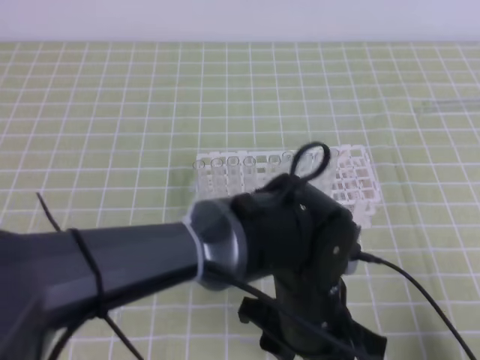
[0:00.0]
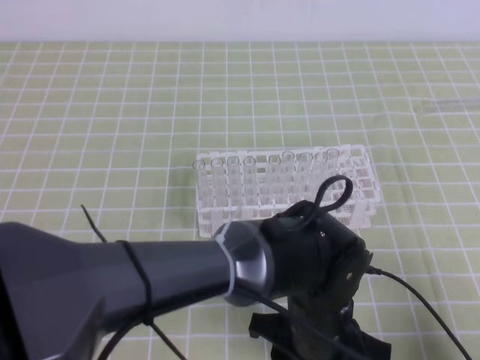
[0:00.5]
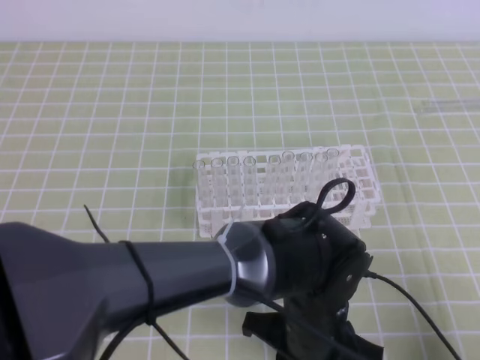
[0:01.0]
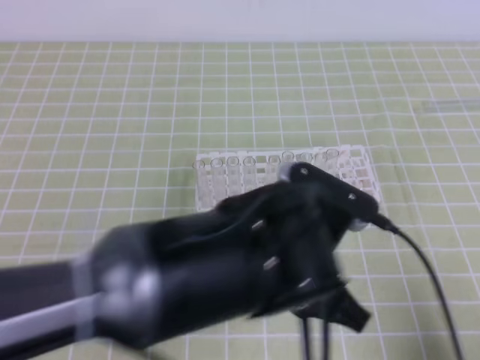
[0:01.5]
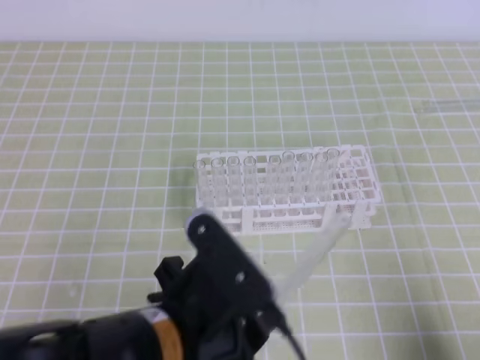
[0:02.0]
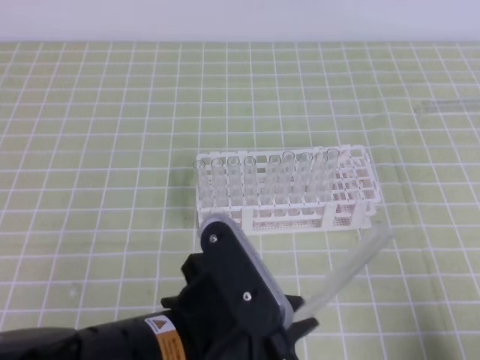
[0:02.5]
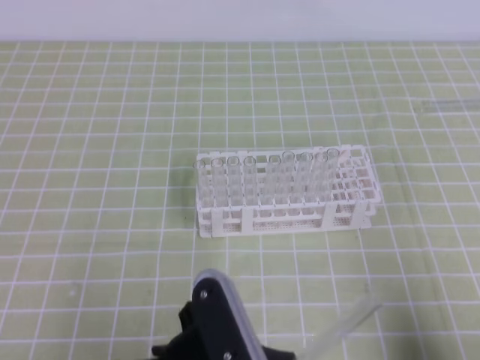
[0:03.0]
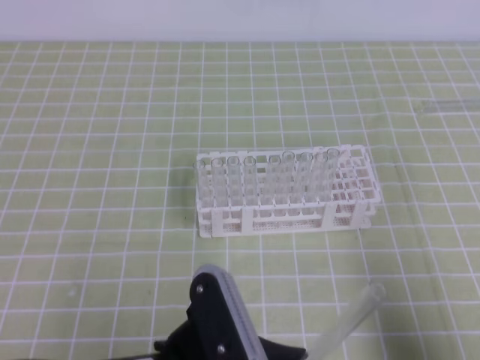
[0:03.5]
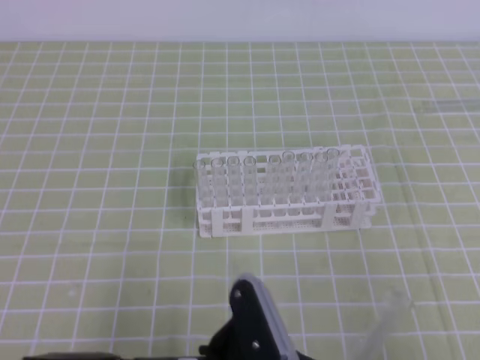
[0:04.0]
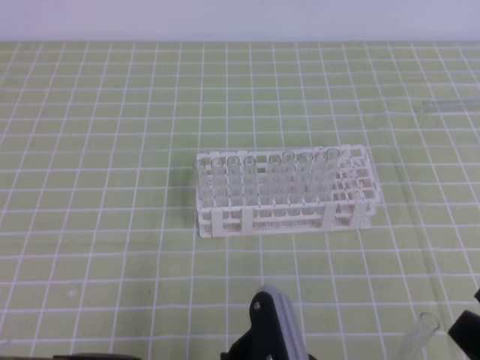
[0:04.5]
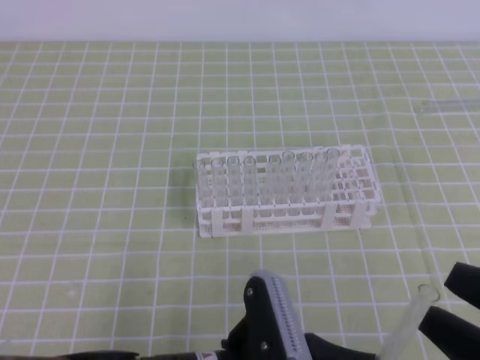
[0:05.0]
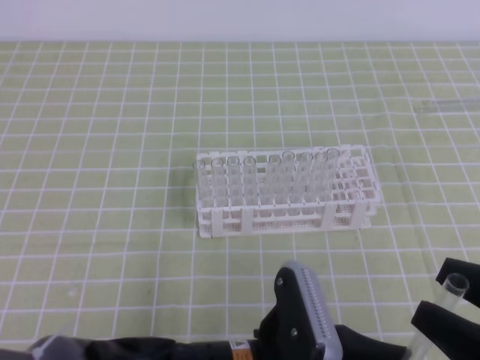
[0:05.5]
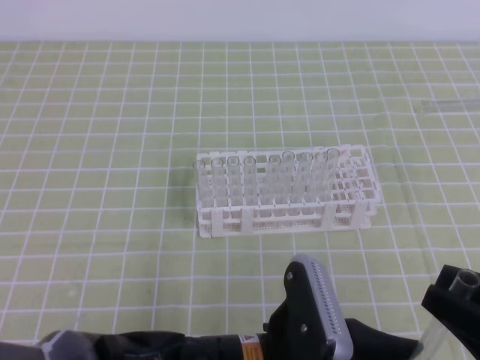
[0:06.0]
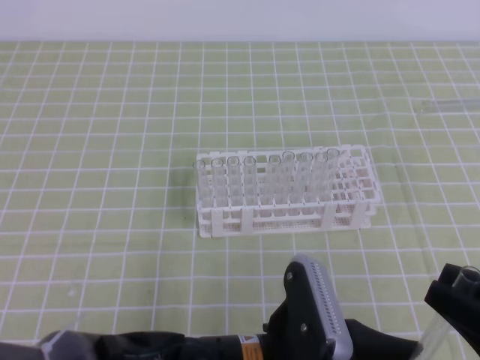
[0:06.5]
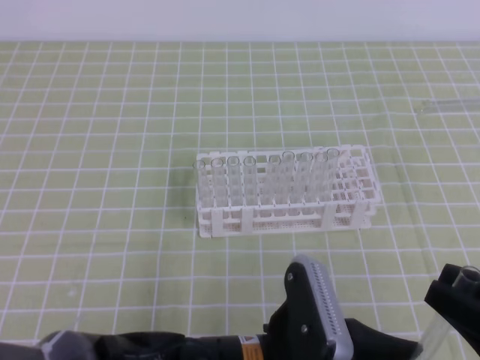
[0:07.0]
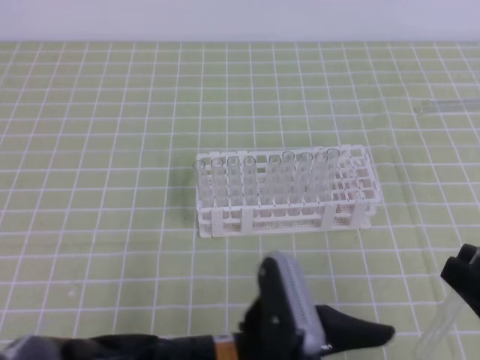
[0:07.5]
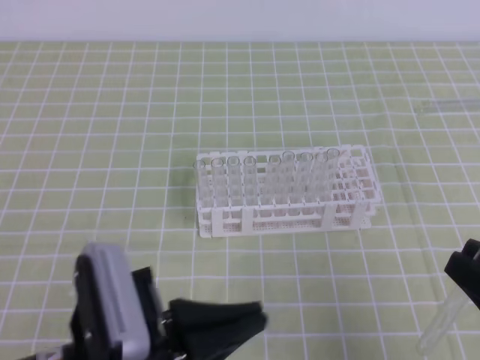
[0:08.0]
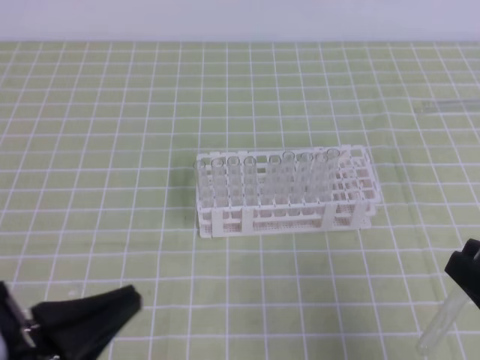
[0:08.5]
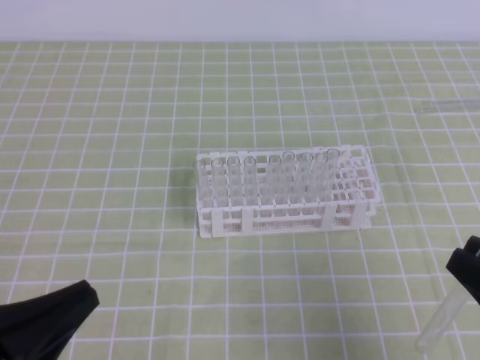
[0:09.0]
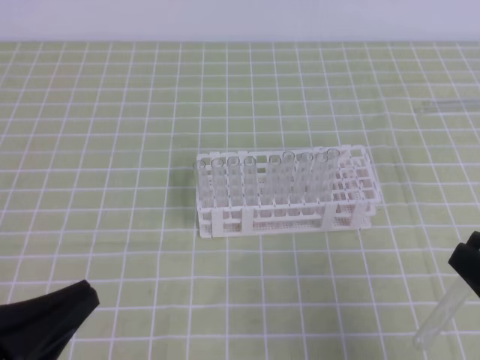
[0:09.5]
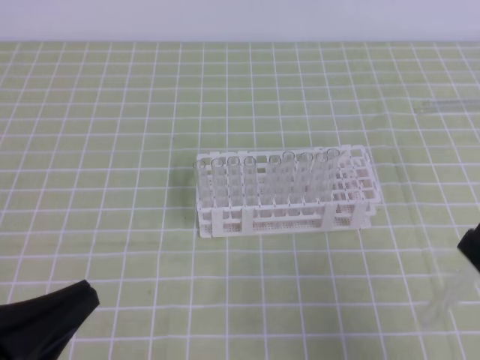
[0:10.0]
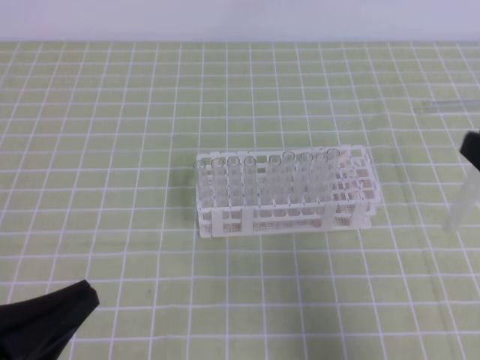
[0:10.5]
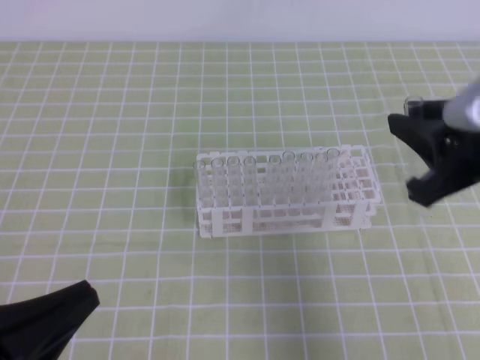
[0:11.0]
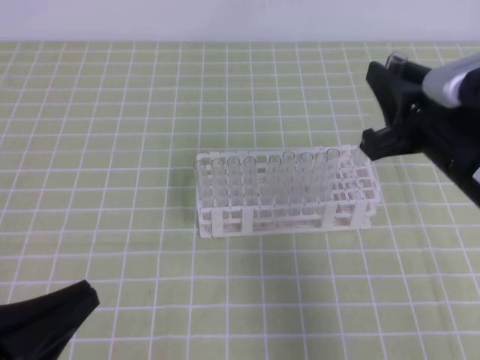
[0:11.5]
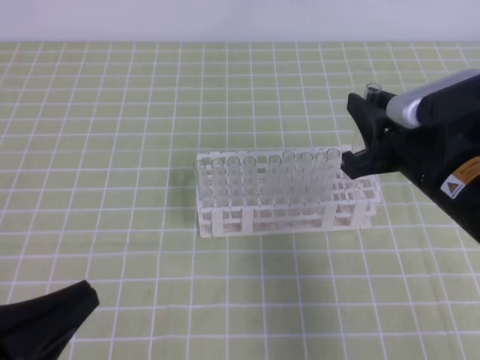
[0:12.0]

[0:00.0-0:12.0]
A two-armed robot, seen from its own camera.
0:00.0 to 0:02.0: The left gripper shifts roughly 15 cm to the left, upward and backward, and closes.
0:02.0 to 0:04.0: The left gripper goes some 5 cm downward; the right gripper is displaced upward by roughly 5 cm.
0:04.0 to 0:06.0: The left gripper shifts roughly 5 cm to the right; the right gripper shifts by about 5 cm, and opens its fingers.
0:06.0 to 0:08.0: The left gripper goes roughly 10 cm to the left, and opens, then closes once more.
0:08.0 to 0:10.0: The left gripper travels to the left by about 10 cm.
0:10.0 to 0:12.0: The right gripper is displaced forward and to the left by roughly 20 cm.

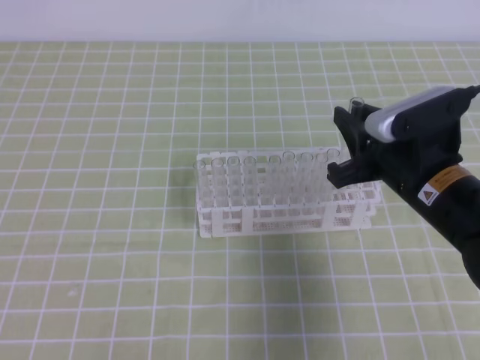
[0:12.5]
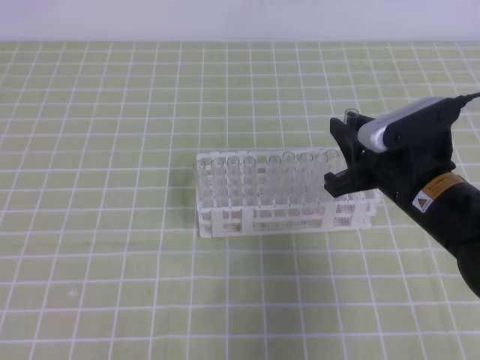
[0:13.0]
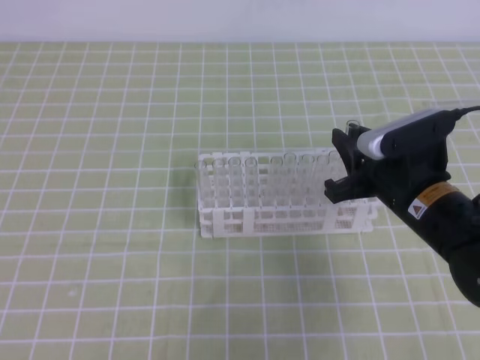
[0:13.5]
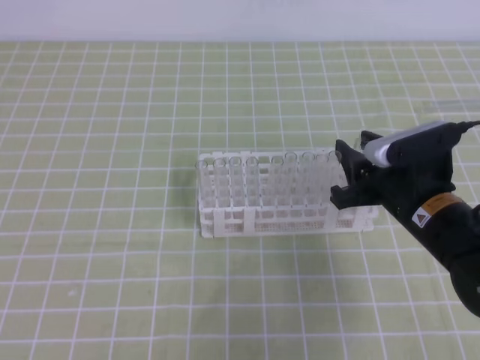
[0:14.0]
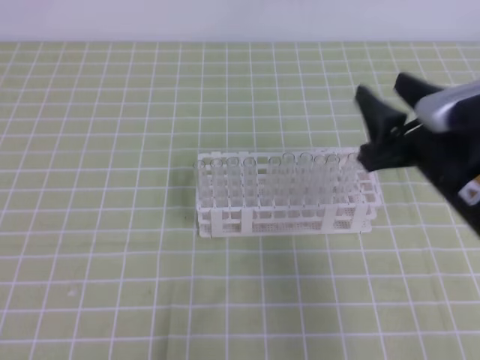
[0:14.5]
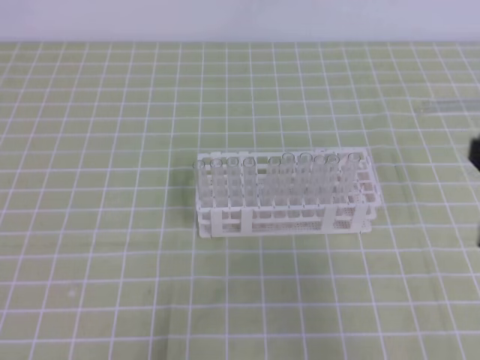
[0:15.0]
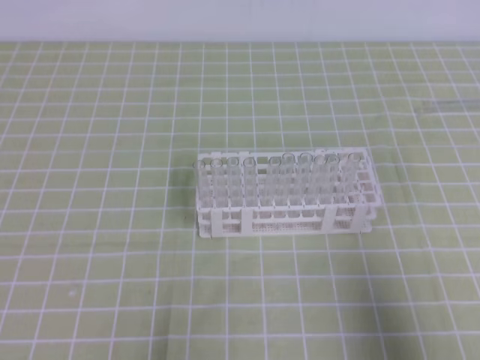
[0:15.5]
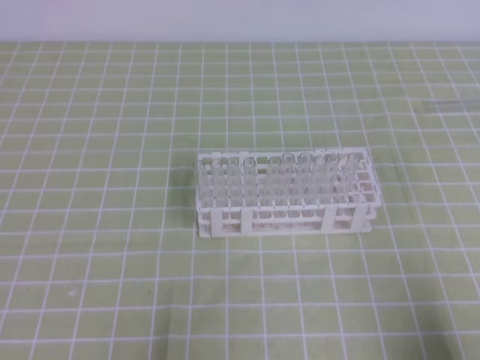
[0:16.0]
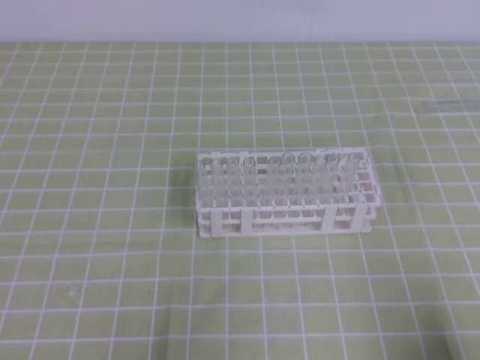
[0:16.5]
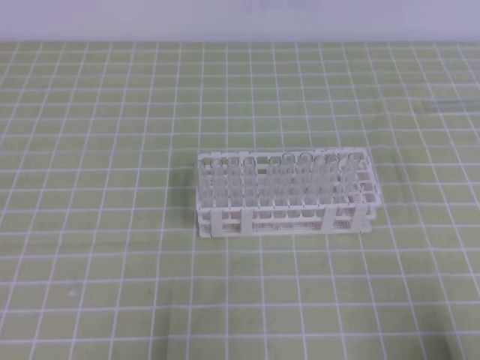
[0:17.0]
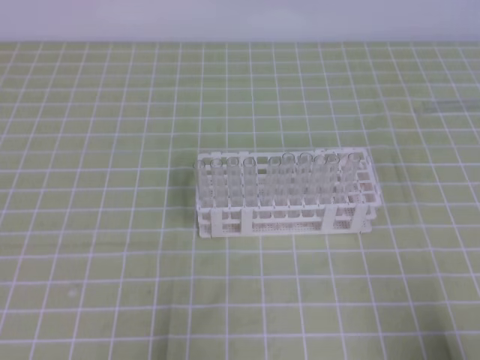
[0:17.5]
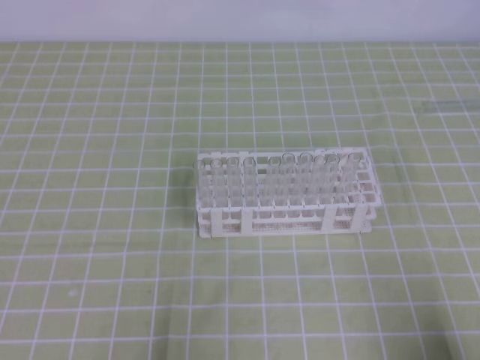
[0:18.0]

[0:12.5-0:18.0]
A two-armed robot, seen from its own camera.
0:12.5 to 0:14.5: The right gripper opens up.
0:14.5 to 0:16.0: The right gripper heads backward, to the right and downward, covering some 25 cm, and closes up.
0:16.0 to 0:18.0: Both grippers stay about where they are.

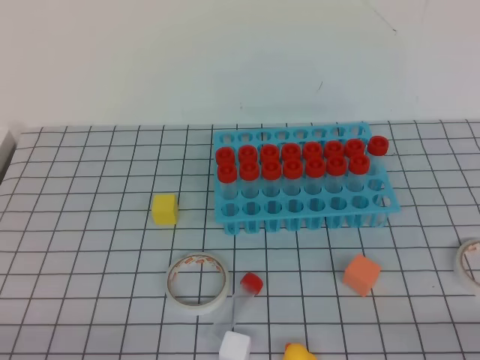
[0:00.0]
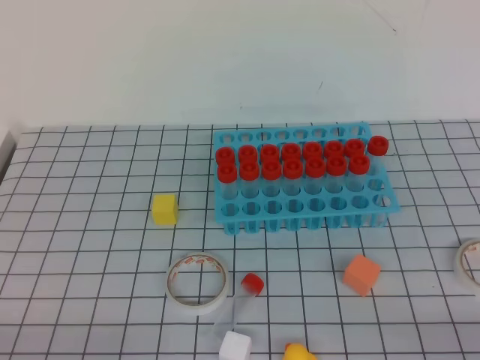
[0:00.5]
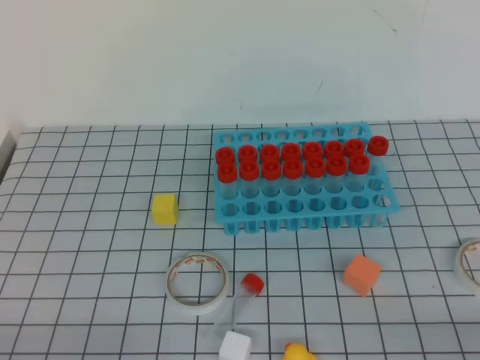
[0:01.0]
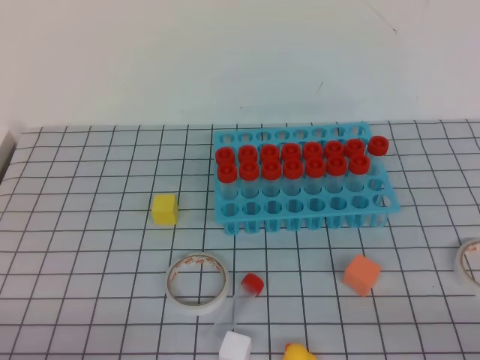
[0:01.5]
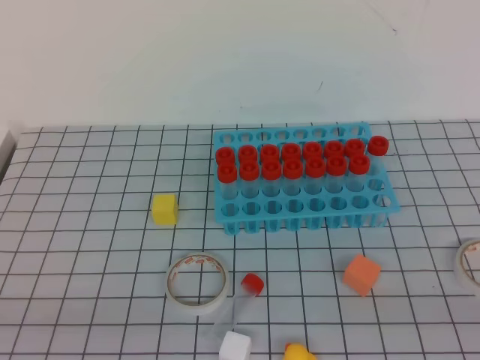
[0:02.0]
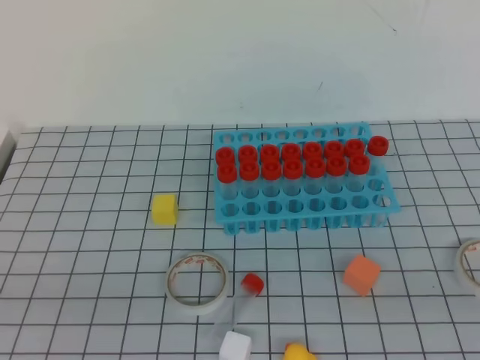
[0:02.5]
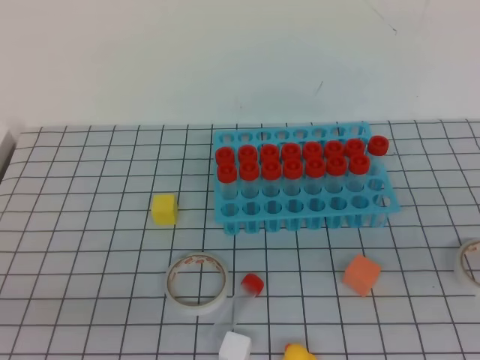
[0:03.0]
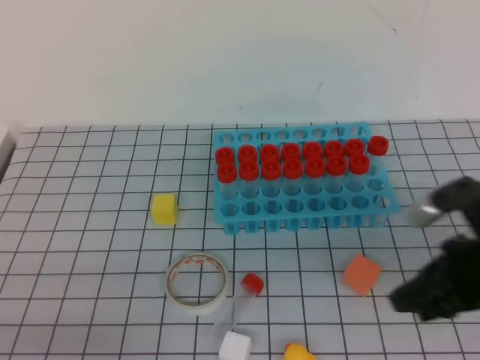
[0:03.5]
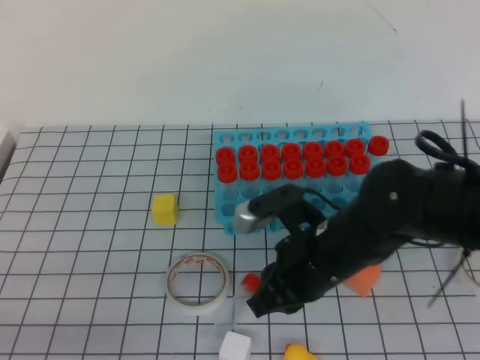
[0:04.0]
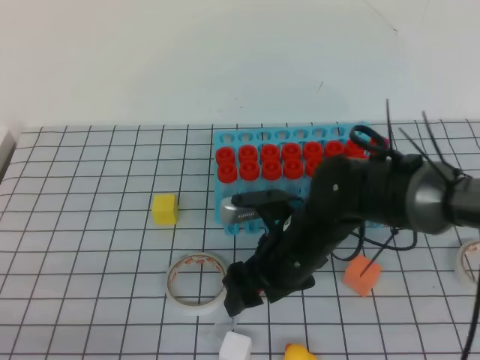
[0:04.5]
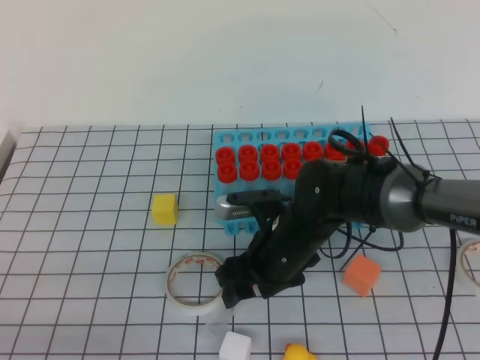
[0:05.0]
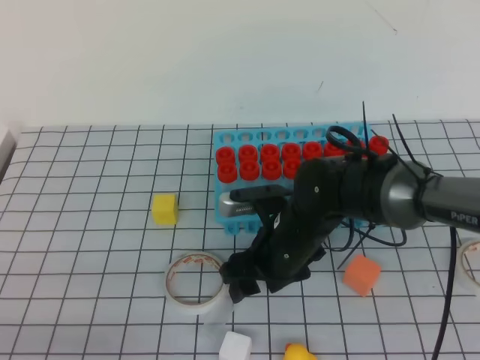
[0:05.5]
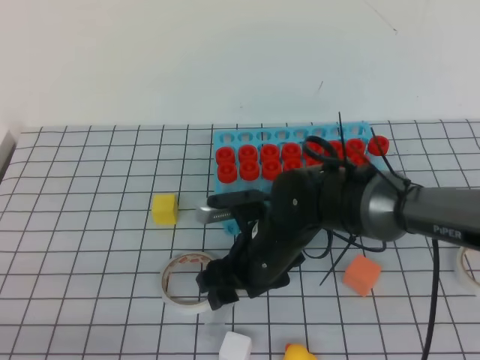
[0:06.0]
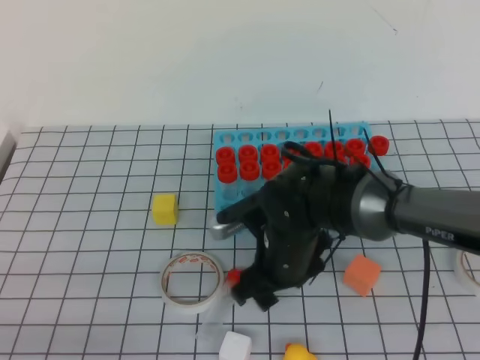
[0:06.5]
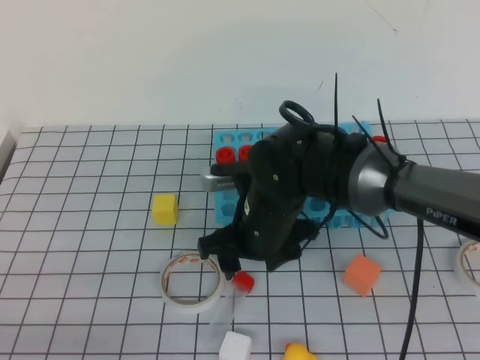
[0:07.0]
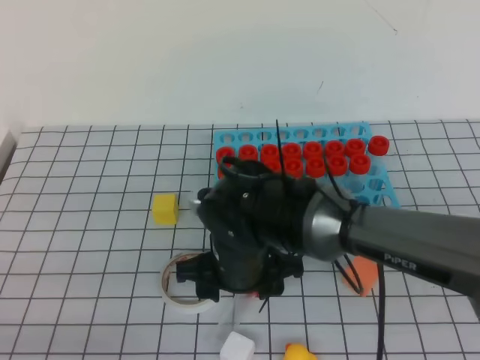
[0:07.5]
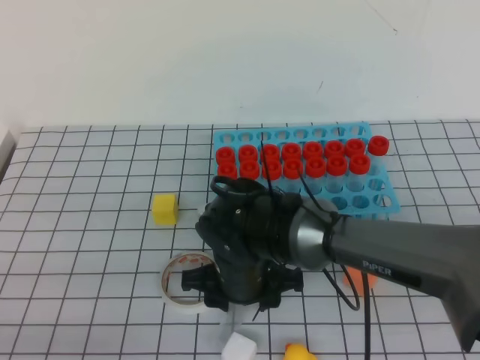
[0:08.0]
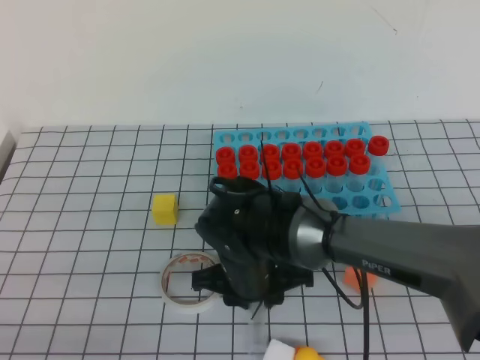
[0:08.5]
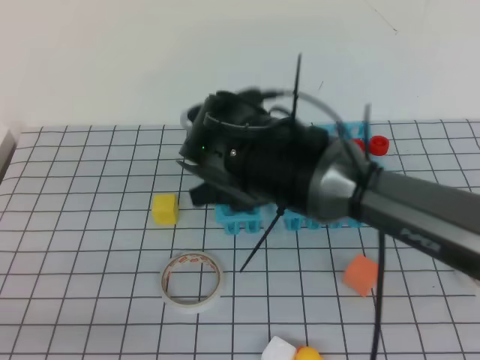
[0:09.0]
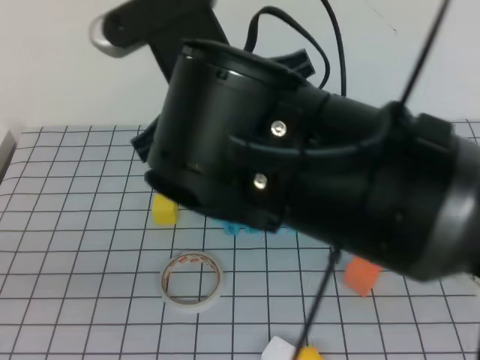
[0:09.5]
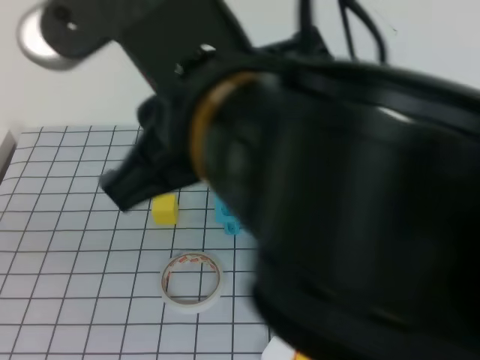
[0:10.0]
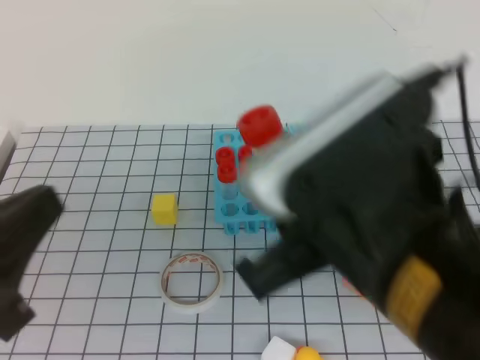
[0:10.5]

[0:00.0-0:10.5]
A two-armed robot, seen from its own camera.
0:02.0 to 0:04.0: The right gripper heads to the left and forward, covering approximately 35 cm.
0:04.0 to 0:06.5: The right gripper goes approximately 5 cm to the left, and opens its fingers.
0:06.5 to 0:08.5: The right gripper closes.
0:08.5 to 0:10.5: The left gripper heads upward, covering approximately 10 cm; the right gripper moves upward, backward and to the right, approximately 30 cm.
